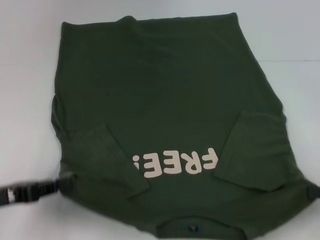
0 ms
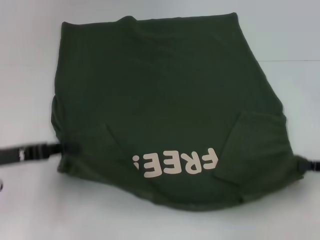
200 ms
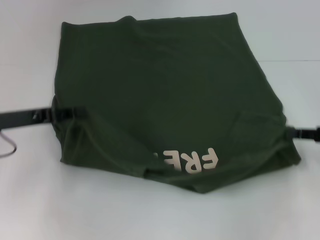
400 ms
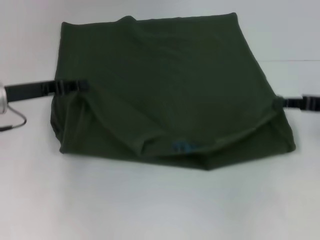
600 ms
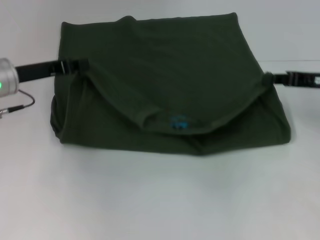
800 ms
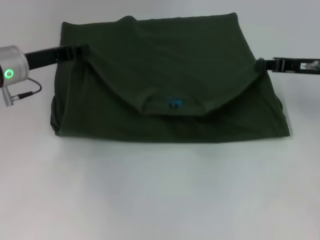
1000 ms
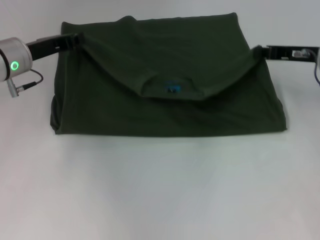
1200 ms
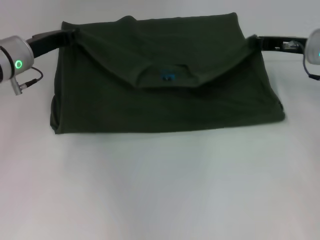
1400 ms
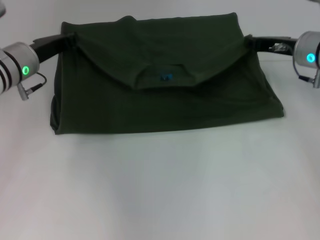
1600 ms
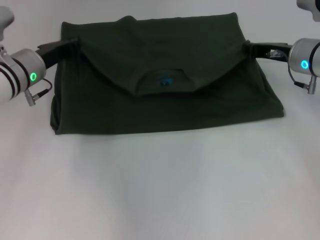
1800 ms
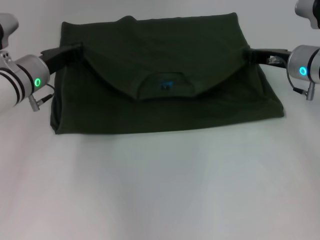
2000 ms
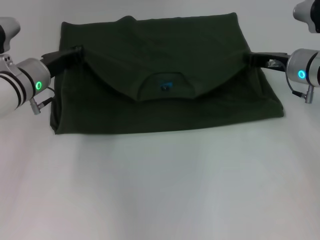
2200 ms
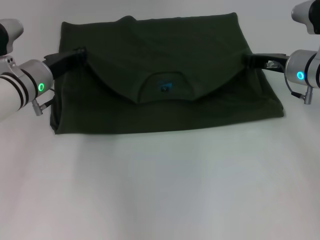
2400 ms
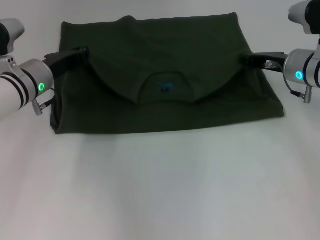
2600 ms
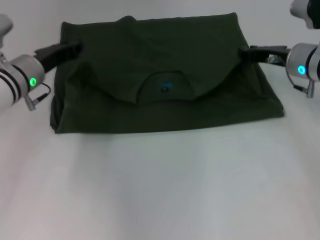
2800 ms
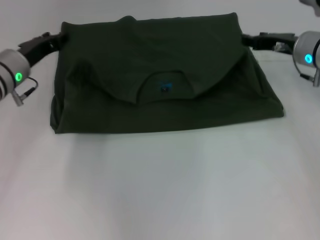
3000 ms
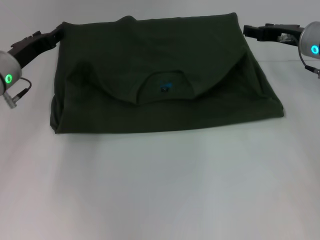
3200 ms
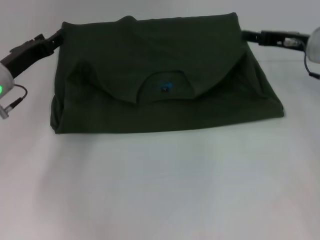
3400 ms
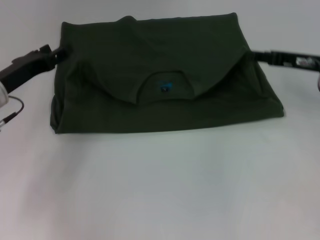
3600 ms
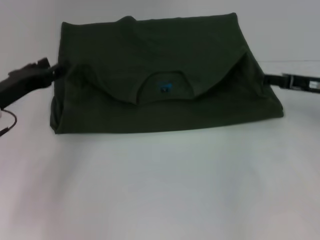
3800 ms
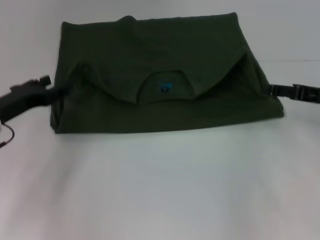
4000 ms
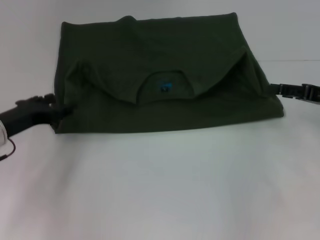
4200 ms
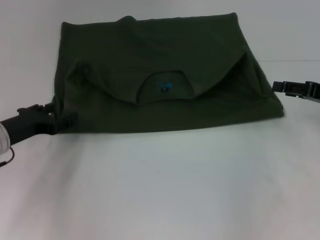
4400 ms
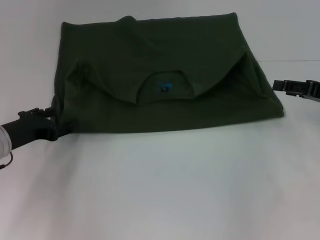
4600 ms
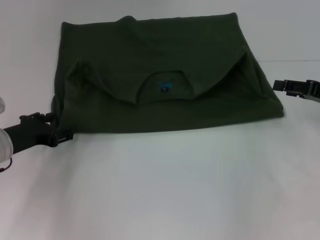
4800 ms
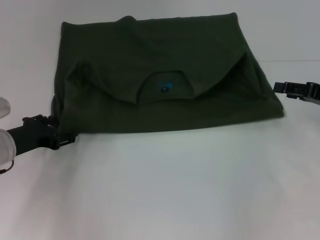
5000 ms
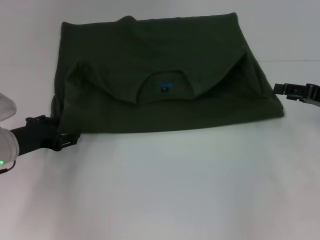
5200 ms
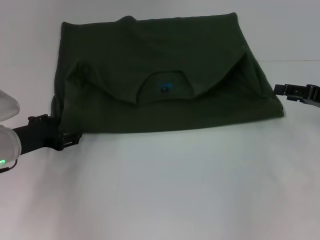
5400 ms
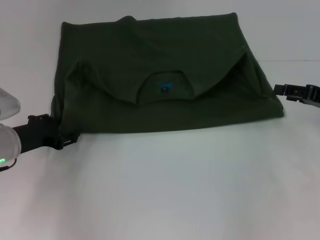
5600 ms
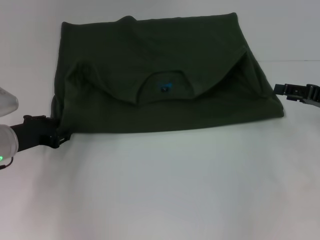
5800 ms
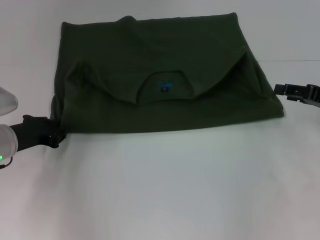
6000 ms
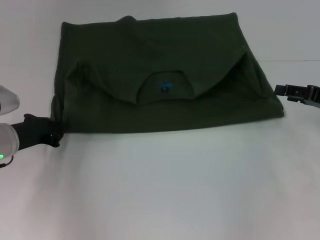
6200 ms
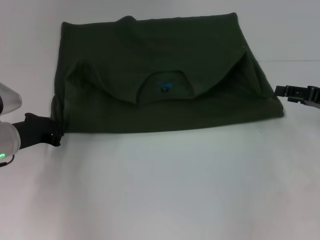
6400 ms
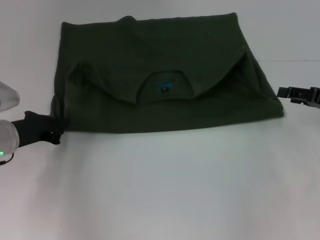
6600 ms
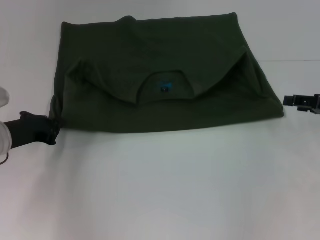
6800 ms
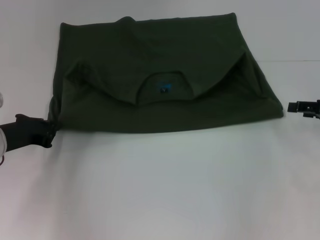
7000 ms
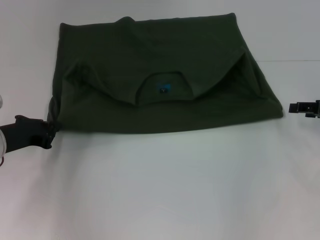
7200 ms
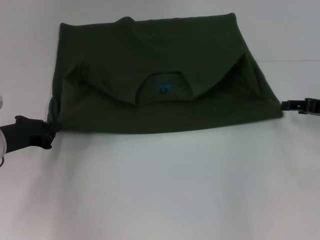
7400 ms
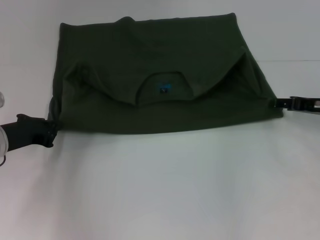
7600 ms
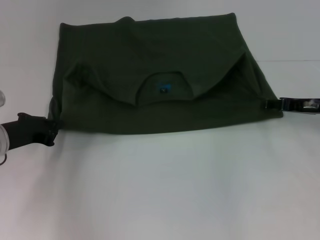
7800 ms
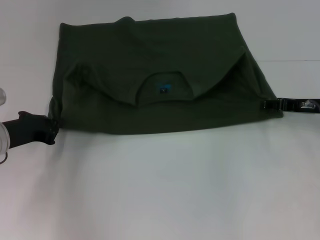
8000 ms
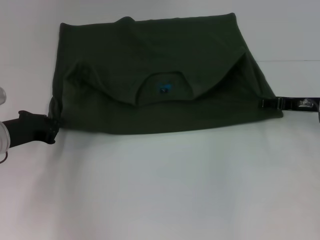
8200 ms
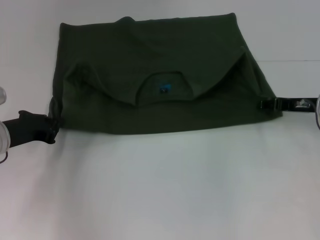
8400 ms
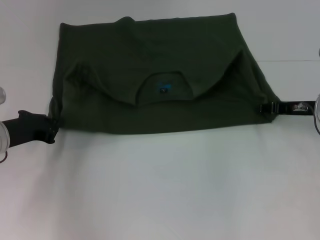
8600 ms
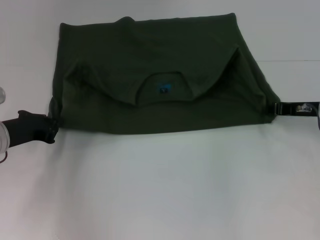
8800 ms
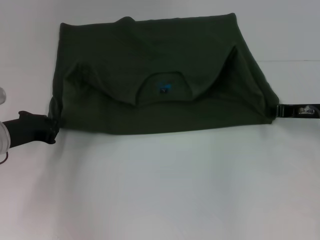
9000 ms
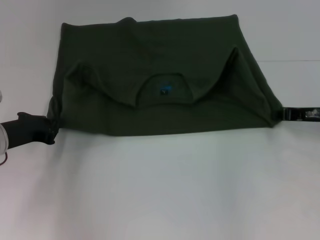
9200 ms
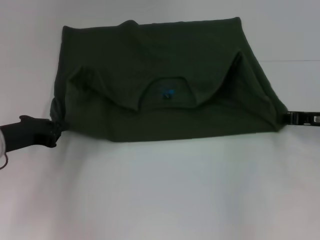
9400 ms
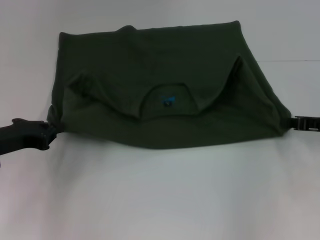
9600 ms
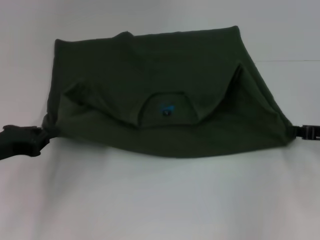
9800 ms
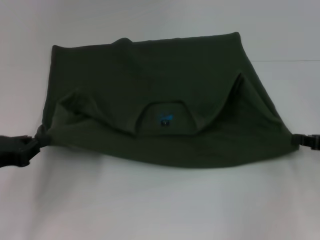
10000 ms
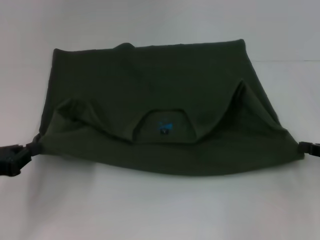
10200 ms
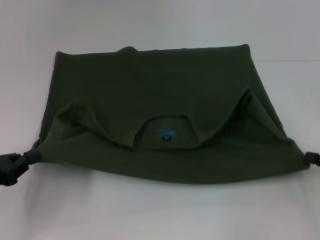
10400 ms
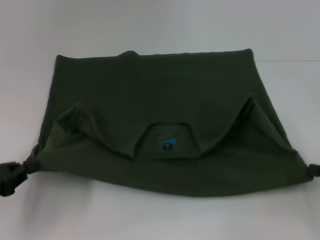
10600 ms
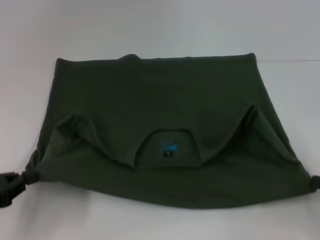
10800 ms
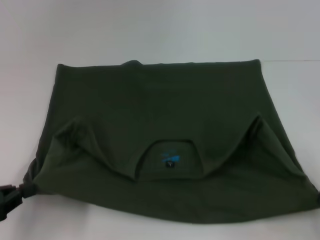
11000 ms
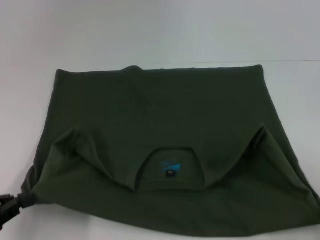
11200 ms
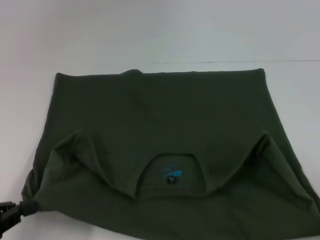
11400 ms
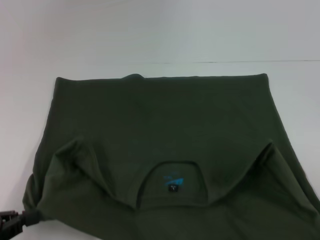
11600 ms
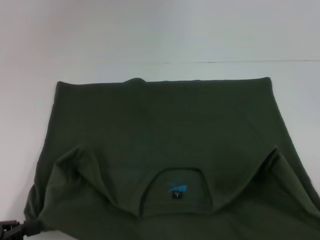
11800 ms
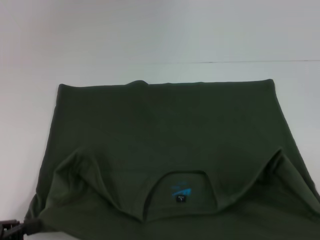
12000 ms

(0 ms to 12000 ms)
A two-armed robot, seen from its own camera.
Step, 0 ms - 2800 ms: Fold the clothes with your left hand.
Step, 0 ms - 2800 ms: Fold the clothes with your right hand.
Step, 3000 ms - 11800 ms: Pull the clothes with your left hand.
Step, 3000 ms - 11800 ms: Pull the clothes with your right hand.
0 ms - 1600 ms: The right gripper moves forward and to the left, roughly 25 cm; the left gripper moves forward, about 20 cm.
1600 ms - 3000 ms: The grippers make only small movements.
3000 ms - 4400 ms: The right gripper moves backward and to the right, some 15 cm, and opens. Meanwhile the left gripper moves backward, about 10 cm, and opens up.
4400 ms - 6000 ms: The left gripper closes its fingers.
6000 ms - 7600 ms: The left gripper closes its fingers.
7600 ms - 9000 ms: The right gripper closes.
9000 ms - 10400 ms: The right gripper is displaced backward and to the right by some 15 cm, while the left gripper shifts some 10 cm backward and to the left.
10400 ms - 12000 ms: The right gripper heads backward, covering some 15 cm. The left gripper moves backward, about 5 cm.

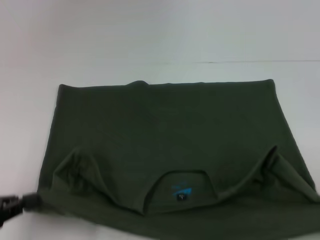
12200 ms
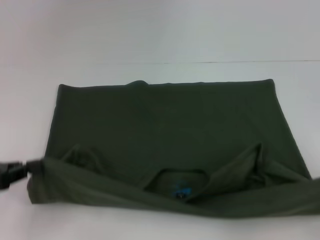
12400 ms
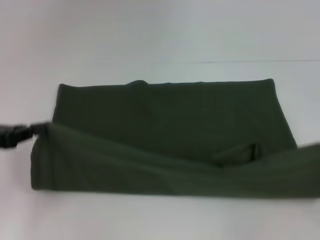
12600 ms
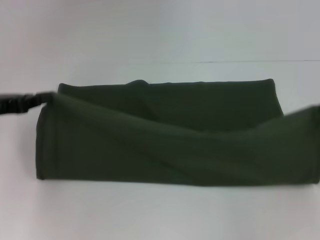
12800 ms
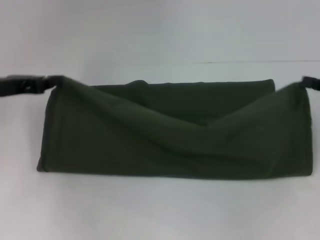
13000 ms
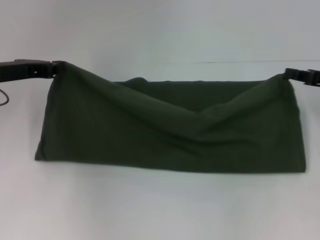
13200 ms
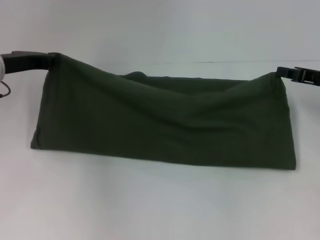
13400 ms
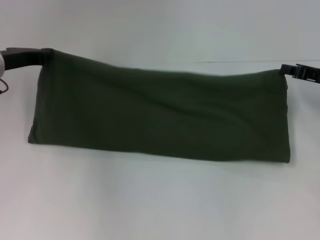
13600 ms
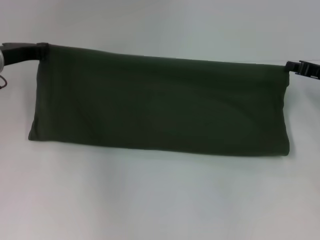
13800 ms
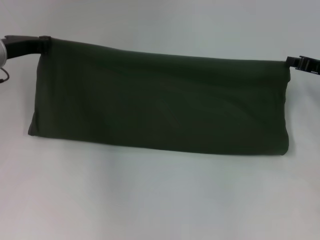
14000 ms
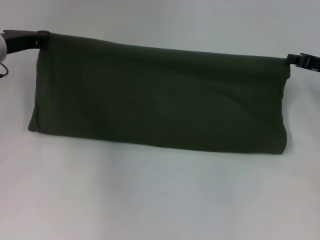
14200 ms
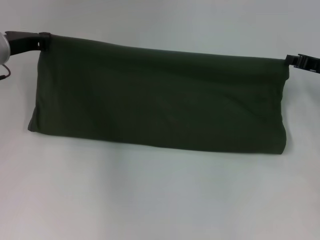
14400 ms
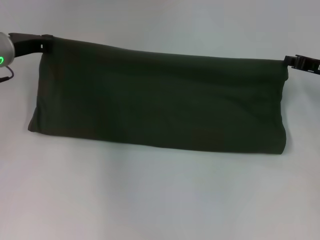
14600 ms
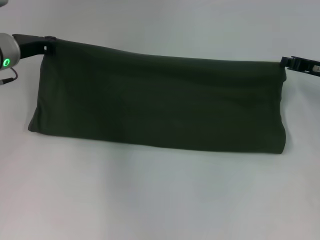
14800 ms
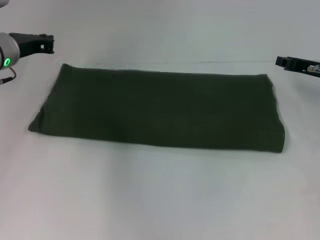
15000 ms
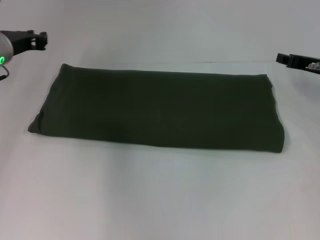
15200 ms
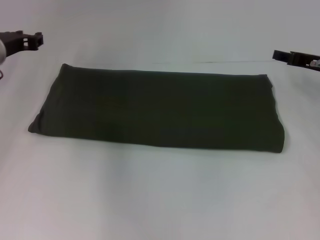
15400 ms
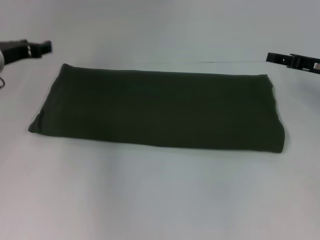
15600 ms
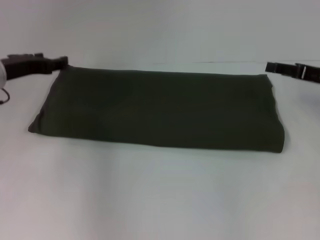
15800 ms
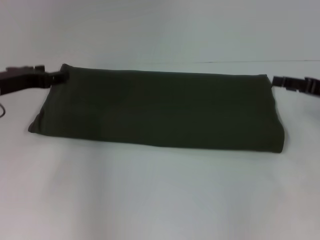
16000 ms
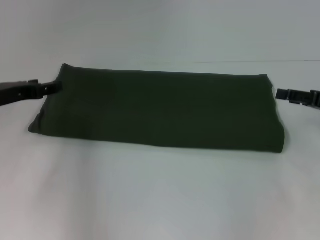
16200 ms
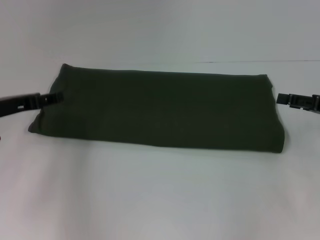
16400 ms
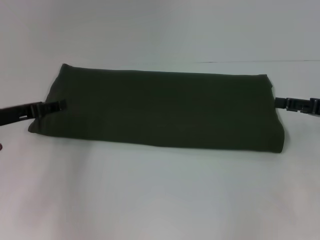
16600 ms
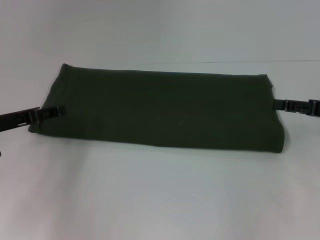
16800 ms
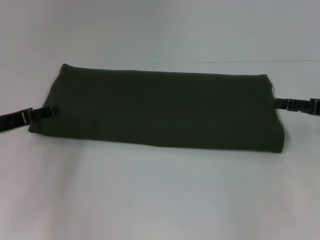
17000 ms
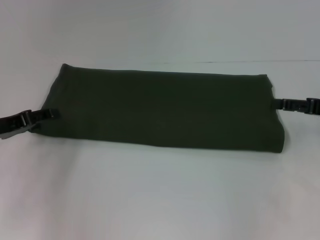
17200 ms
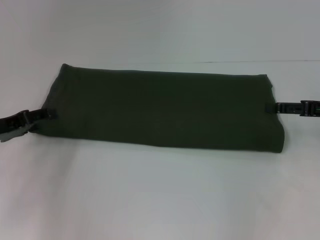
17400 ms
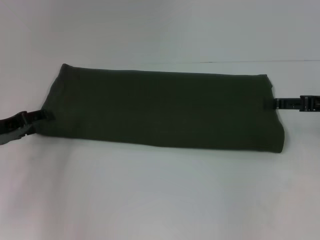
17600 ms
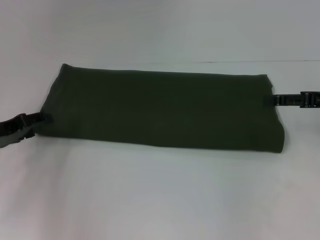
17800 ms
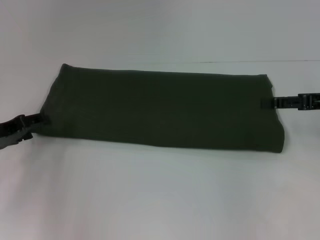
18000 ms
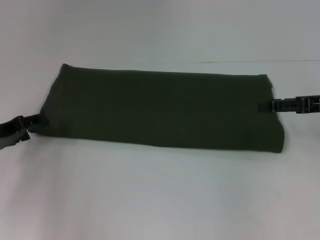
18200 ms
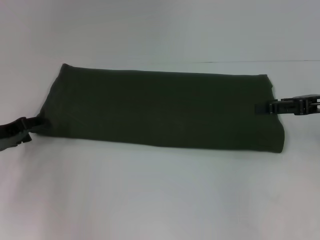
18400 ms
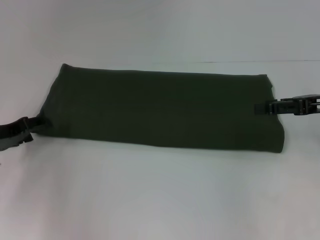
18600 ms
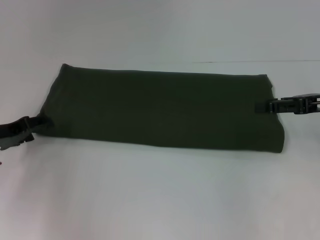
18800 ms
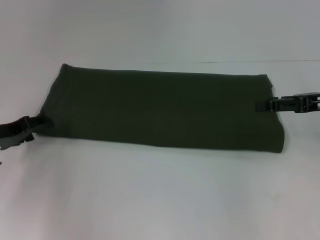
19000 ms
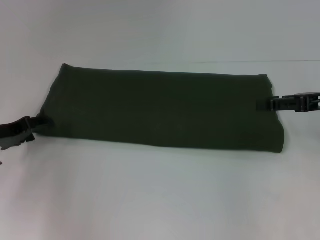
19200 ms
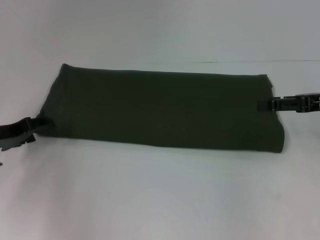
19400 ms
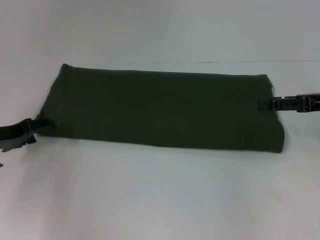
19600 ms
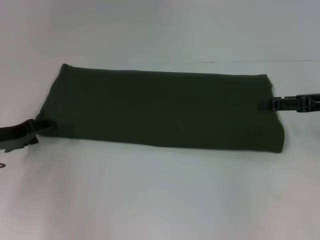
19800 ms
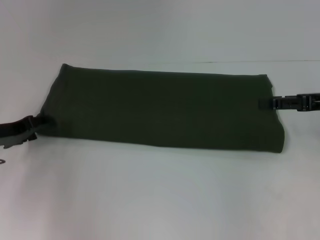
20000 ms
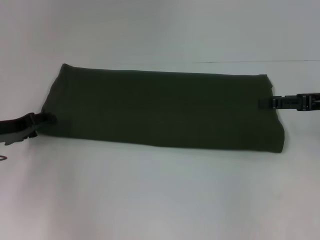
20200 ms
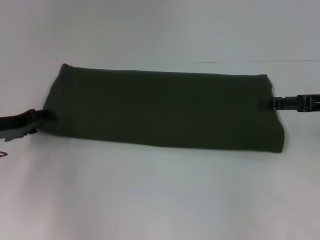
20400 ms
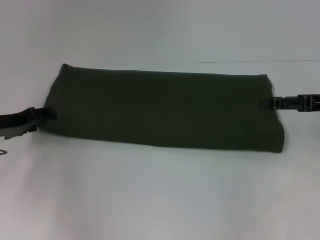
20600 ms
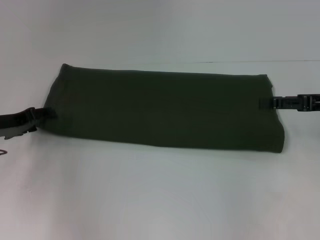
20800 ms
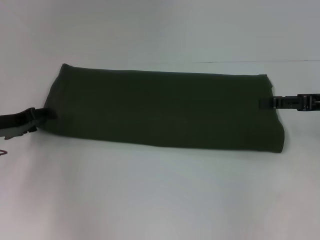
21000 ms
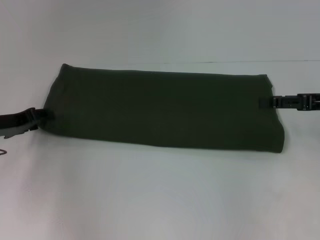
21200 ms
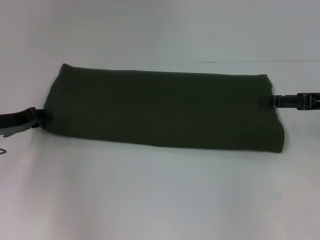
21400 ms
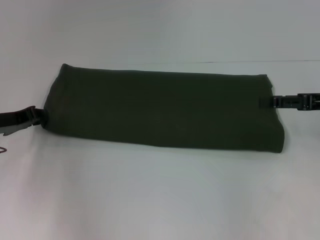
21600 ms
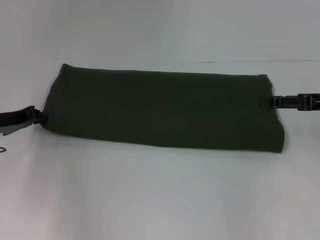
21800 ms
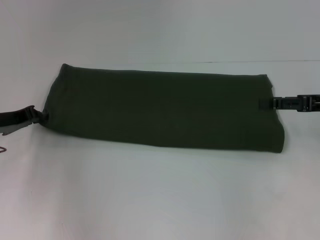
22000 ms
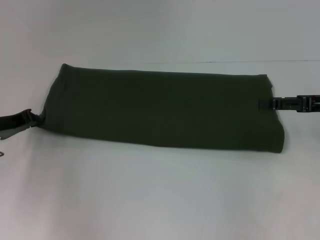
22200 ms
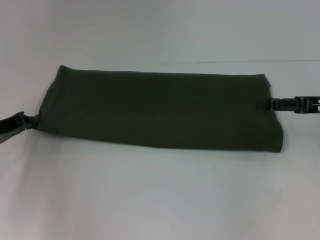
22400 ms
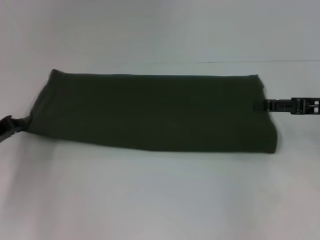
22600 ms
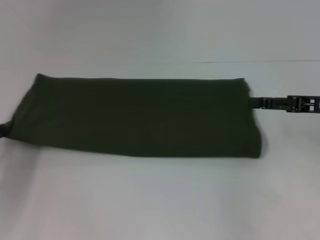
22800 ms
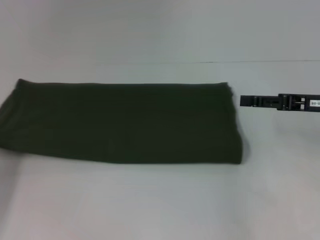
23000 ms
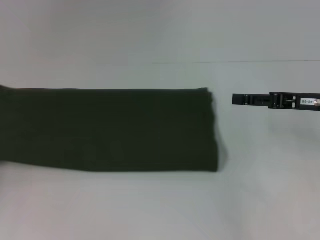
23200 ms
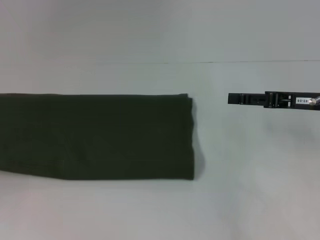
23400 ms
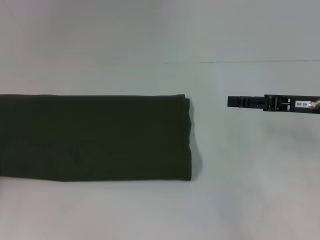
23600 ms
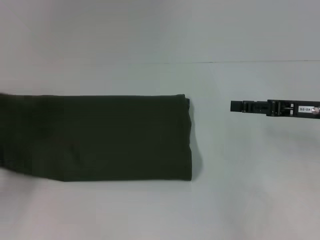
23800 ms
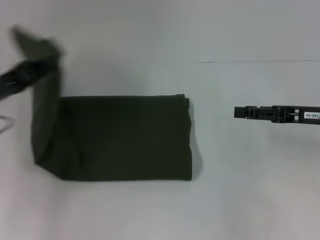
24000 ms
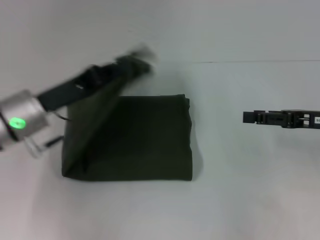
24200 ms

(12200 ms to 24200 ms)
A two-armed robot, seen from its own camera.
Step, 12200 ms - 14800 ms: Fold the clothes with your right hand.
12200 ms - 13800 ms: The two grippers go roughly 25 cm forward.
13800 ms - 15200 ms: The grippers move only a little.
15200 ms - 16600 ms: The two grippers go about 10 cm backward. The left gripper opens, while the right gripper opens up.
18200 ms - 21200 ms: The grippers move only a little.
21200 ms - 22600 ms: The left gripper moves some 5 cm, and closes up.
22600 ms - 24200 ms: The left gripper is displaced to the right by about 10 cm.
